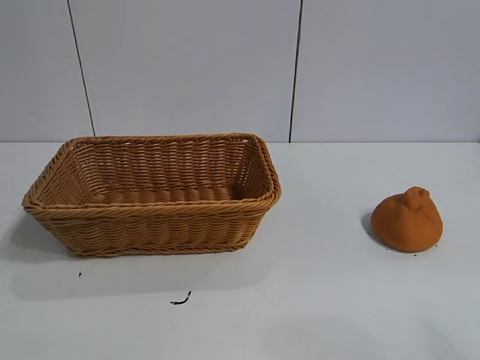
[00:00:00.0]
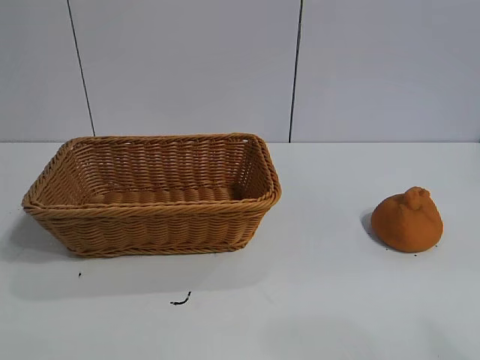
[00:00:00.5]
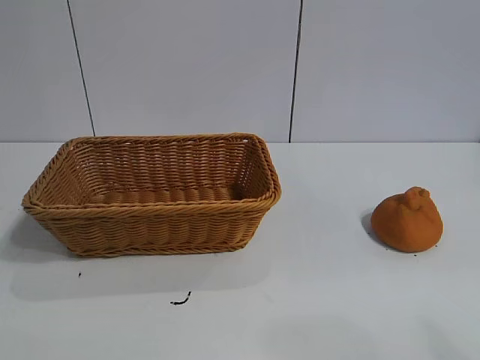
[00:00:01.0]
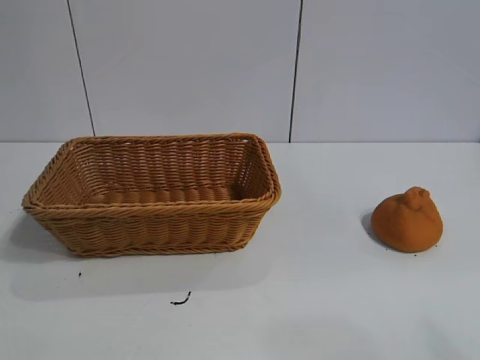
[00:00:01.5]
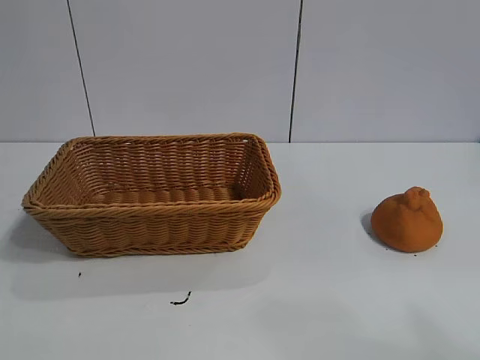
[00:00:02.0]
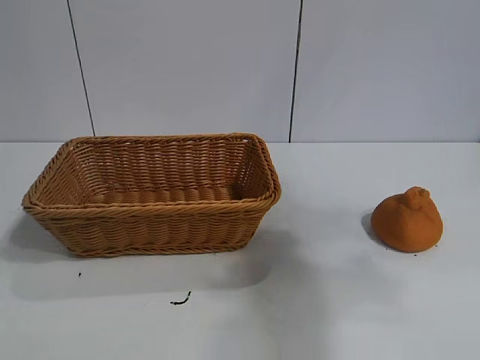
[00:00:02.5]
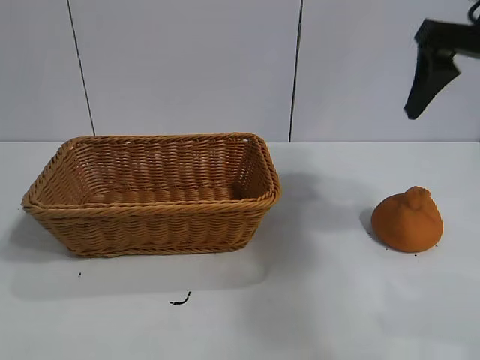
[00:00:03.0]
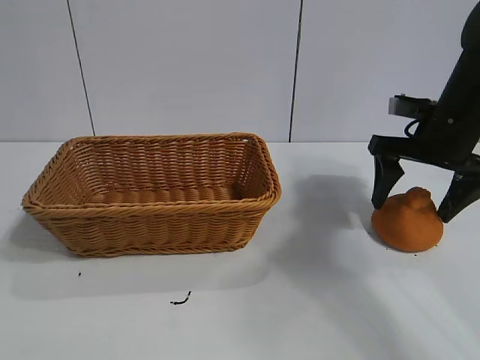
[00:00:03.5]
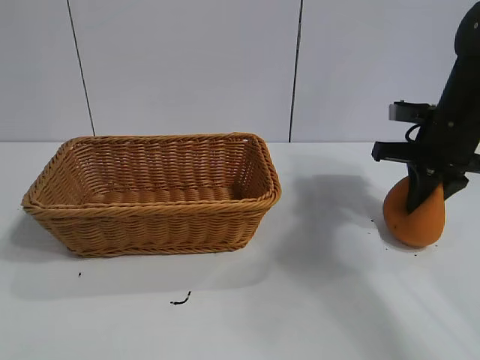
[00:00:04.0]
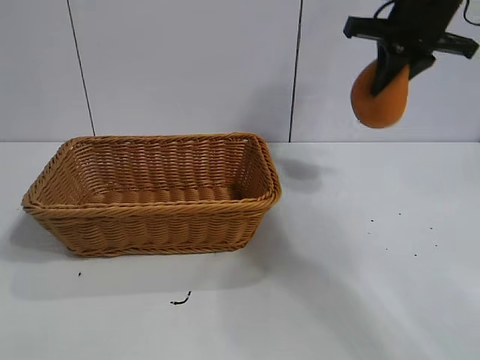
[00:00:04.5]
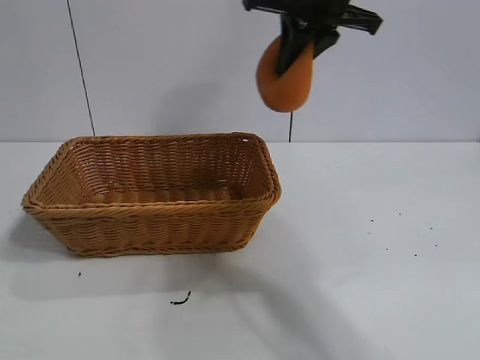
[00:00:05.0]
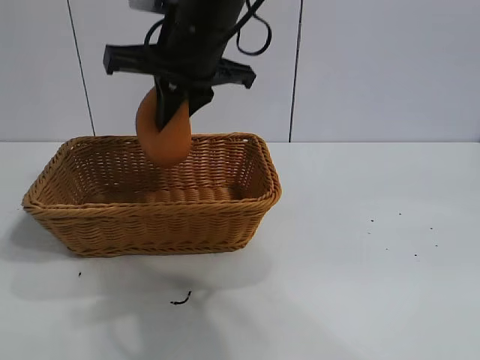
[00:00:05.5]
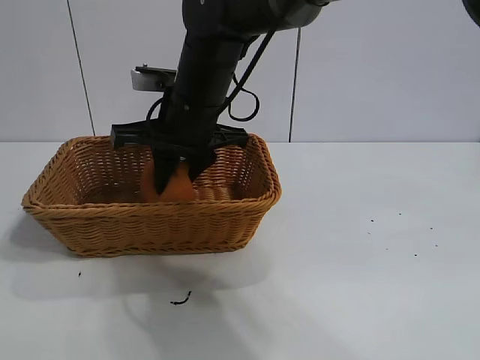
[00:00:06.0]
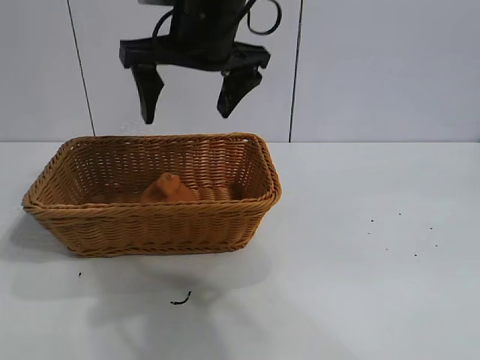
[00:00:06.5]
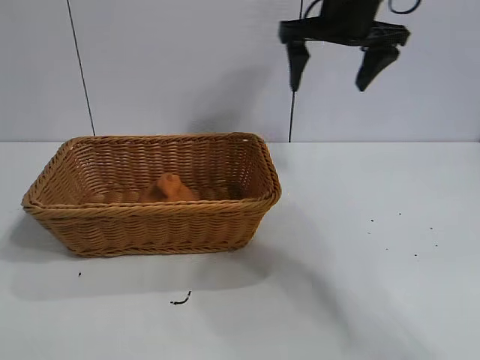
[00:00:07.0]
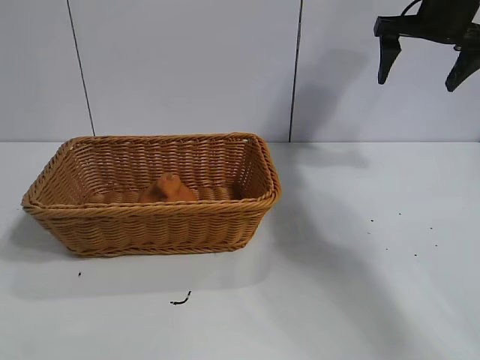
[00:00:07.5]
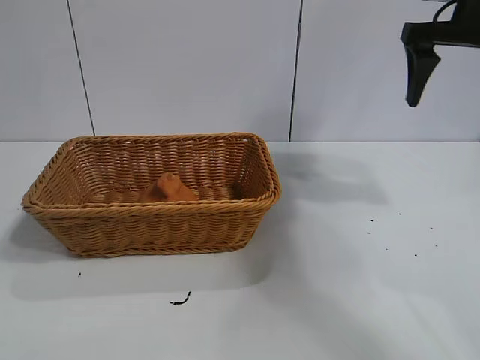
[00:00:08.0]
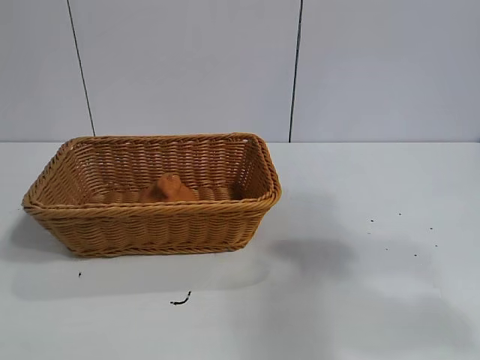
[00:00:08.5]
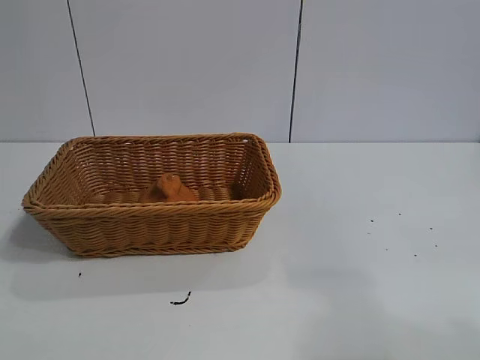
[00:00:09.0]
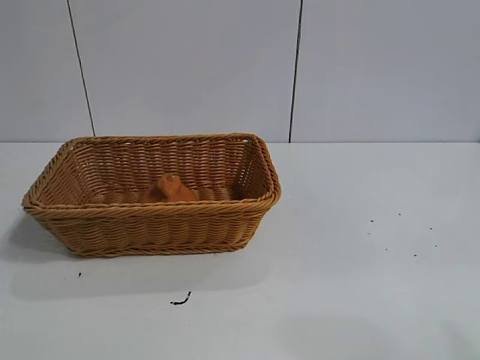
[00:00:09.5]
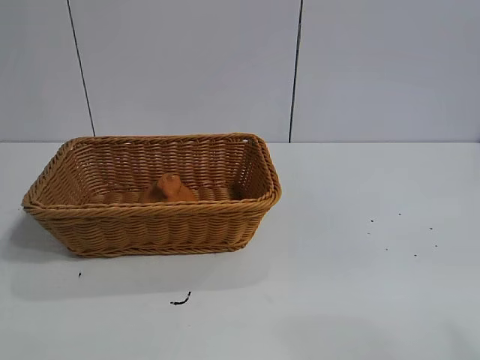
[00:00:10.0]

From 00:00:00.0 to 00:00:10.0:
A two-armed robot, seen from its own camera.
Task of the whole recording: pick up the orange and put it into the basket.
Step, from 00:00:01.5 to 00:00:03.5: Grasp the orange with right gripper.
Step, from 00:00:04.0 to 00:00:06.0: Place the orange in the basket with right gripper.
